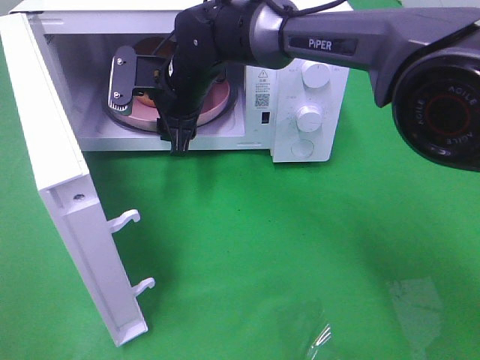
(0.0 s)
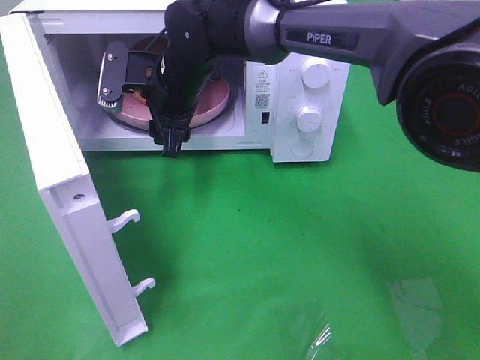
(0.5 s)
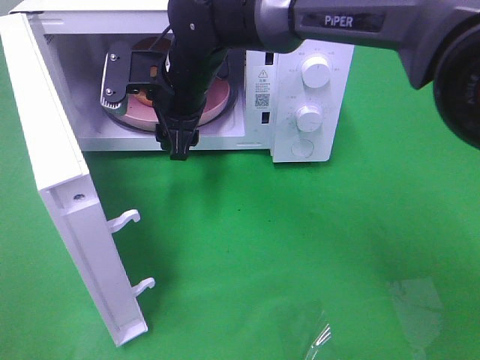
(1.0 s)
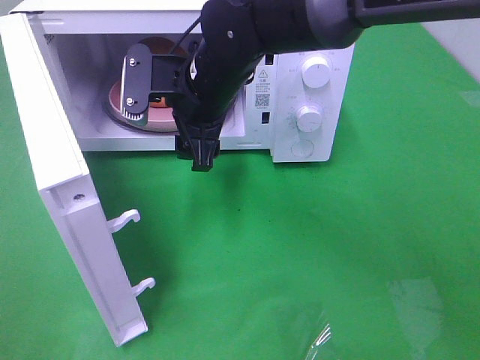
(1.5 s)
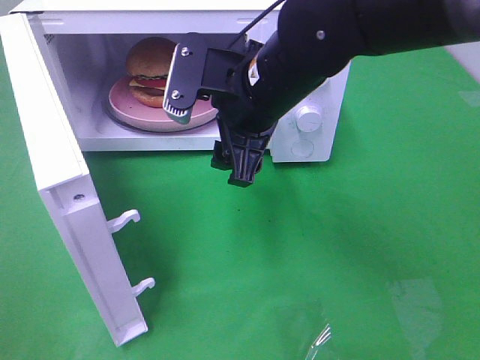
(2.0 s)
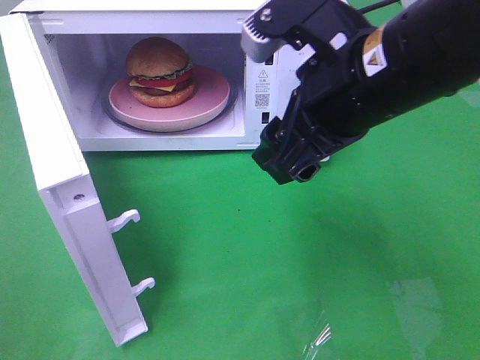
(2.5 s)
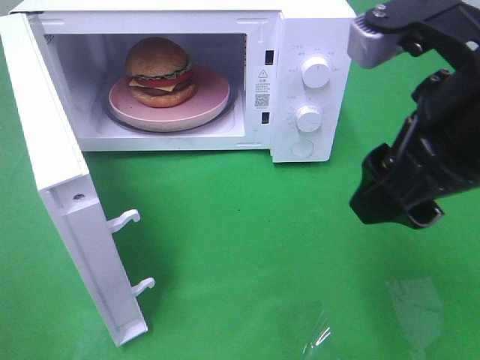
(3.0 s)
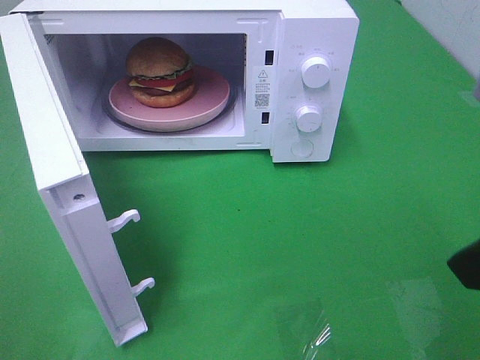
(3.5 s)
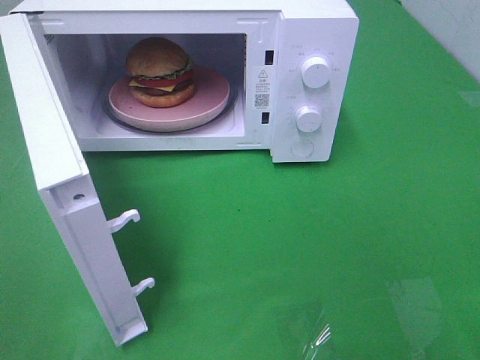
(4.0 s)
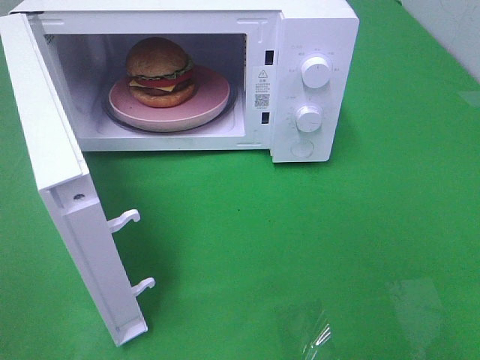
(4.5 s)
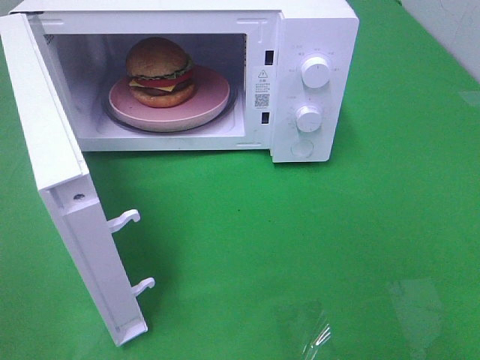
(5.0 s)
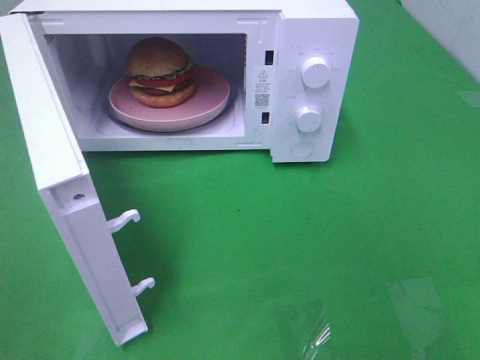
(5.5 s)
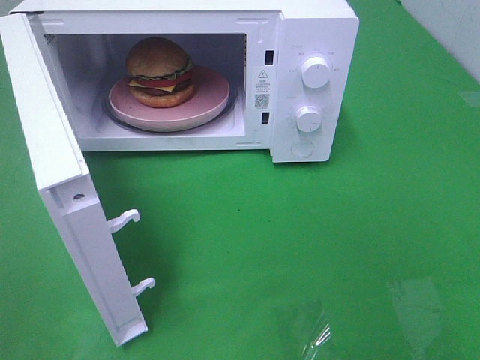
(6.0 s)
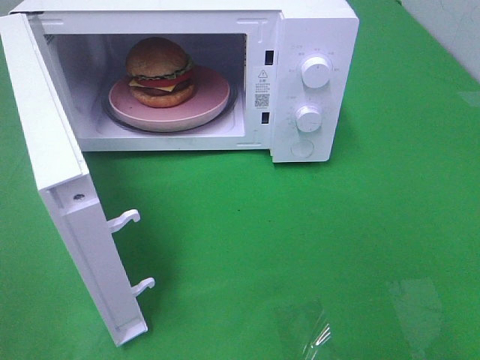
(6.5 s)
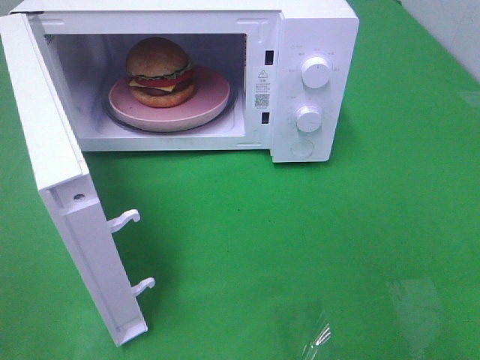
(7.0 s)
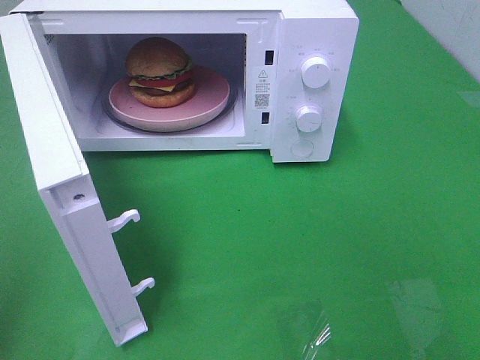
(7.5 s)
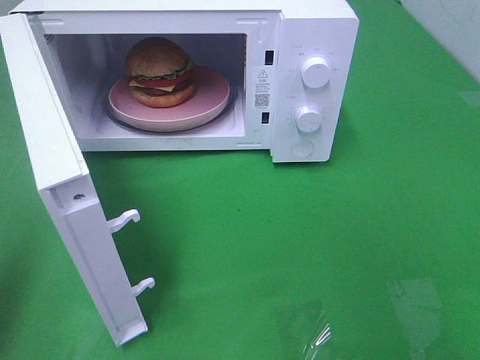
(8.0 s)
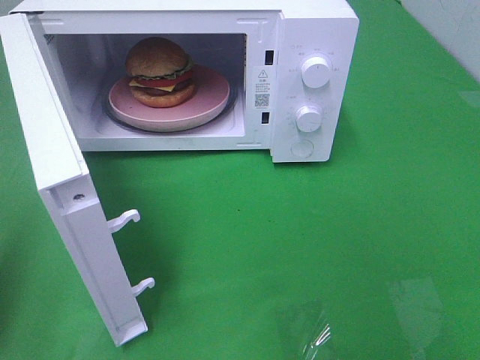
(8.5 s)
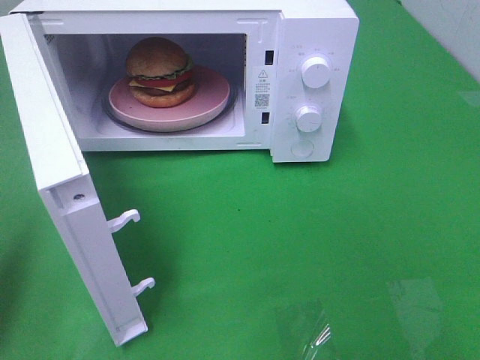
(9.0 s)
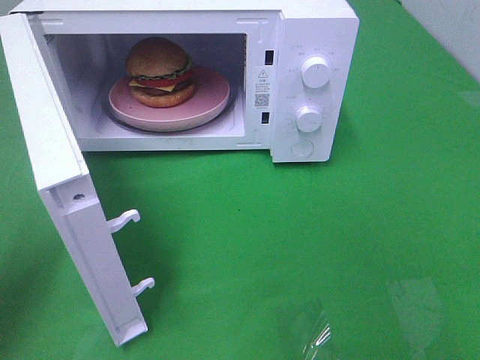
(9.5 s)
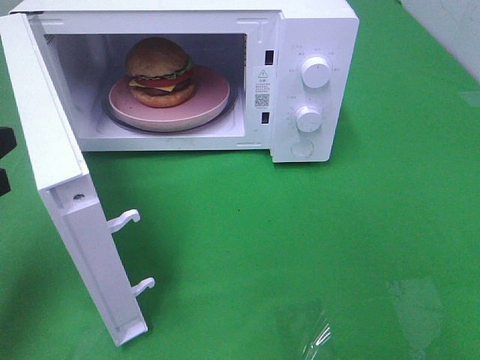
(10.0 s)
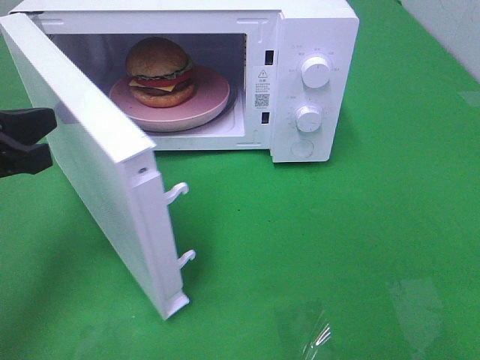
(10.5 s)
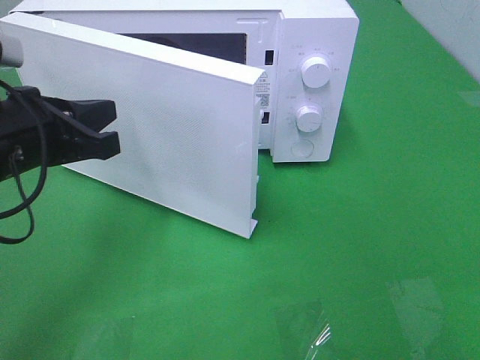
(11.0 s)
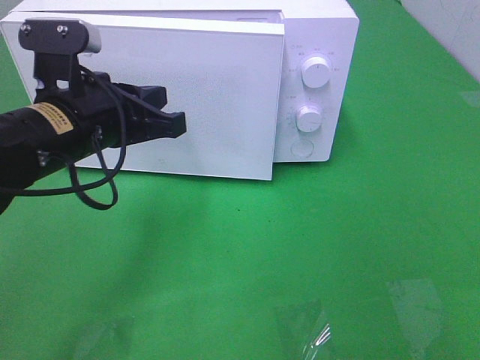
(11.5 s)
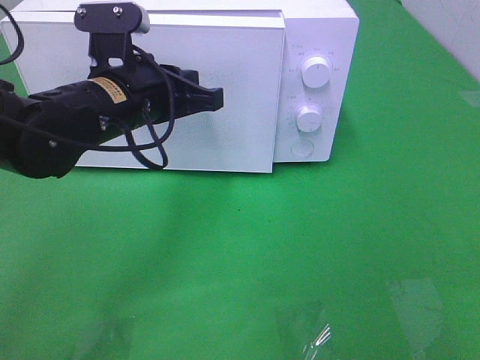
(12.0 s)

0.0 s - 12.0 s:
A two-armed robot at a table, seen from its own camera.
Task of the whole recording: Heat the burger.
0.0 s - 2.0 s: The right gripper goes some 15 cm backward, to the right and upward.
2.0 s - 4.0 s: The right gripper goes approximately 35 cm to the right and backward.
6.0 s - 8.0 s: The left gripper travels forward by roughly 10 cm, and closes.
8.0 s - 10.0 s: The left gripper travels downward and forward by some 10 cm.
10.0 s - 12.0 s: The left gripper travels to the right and forward by approximately 20 cm.

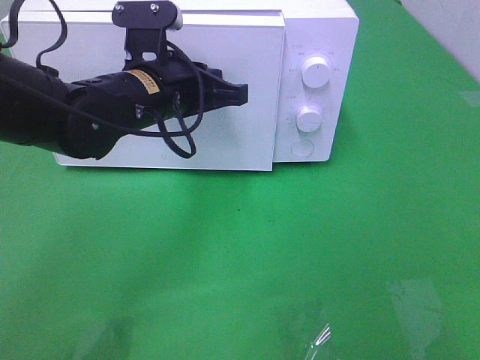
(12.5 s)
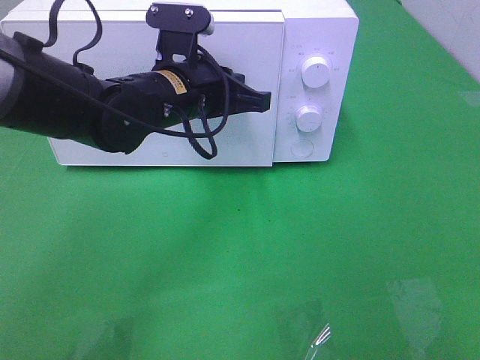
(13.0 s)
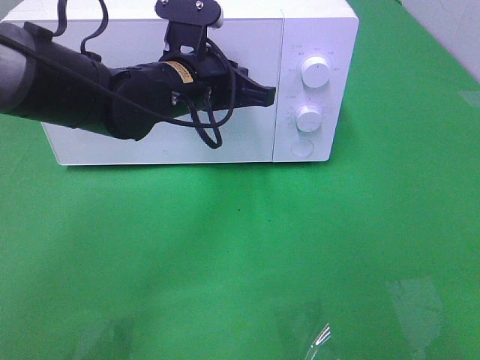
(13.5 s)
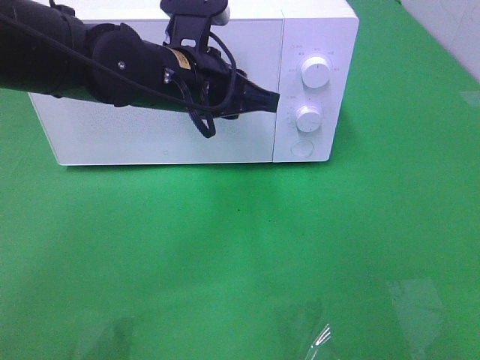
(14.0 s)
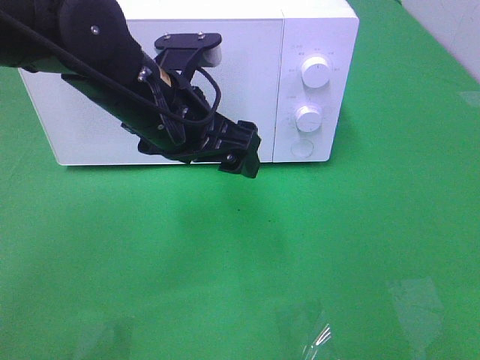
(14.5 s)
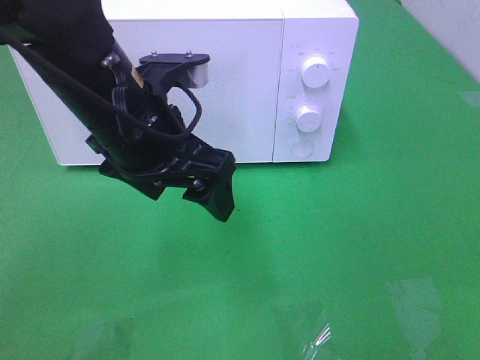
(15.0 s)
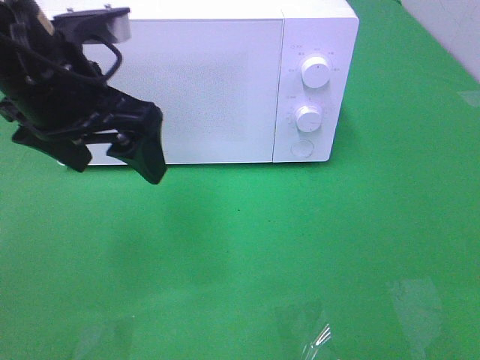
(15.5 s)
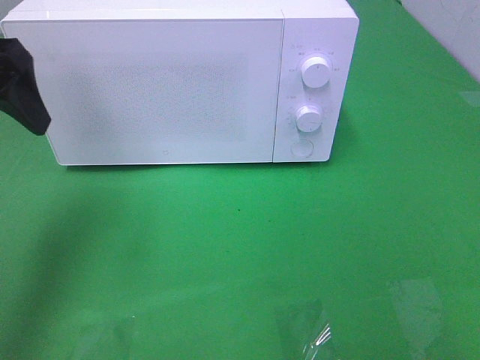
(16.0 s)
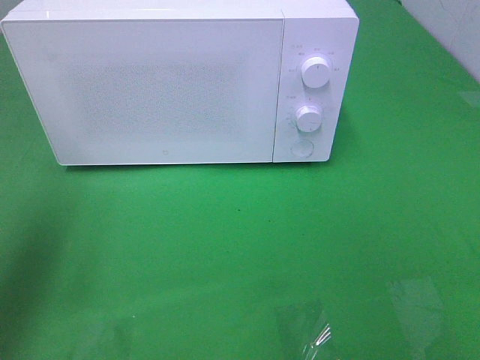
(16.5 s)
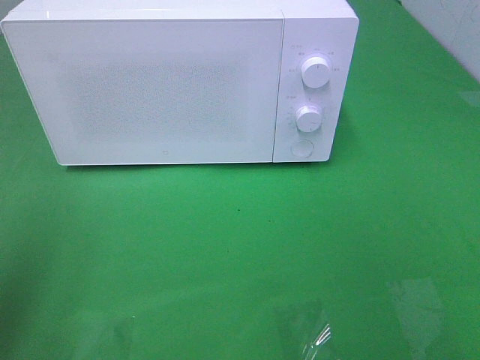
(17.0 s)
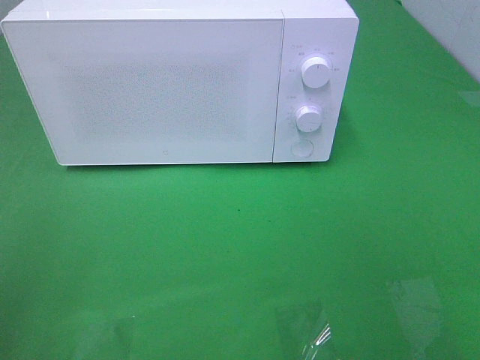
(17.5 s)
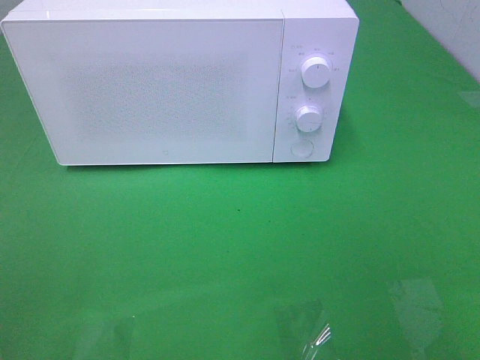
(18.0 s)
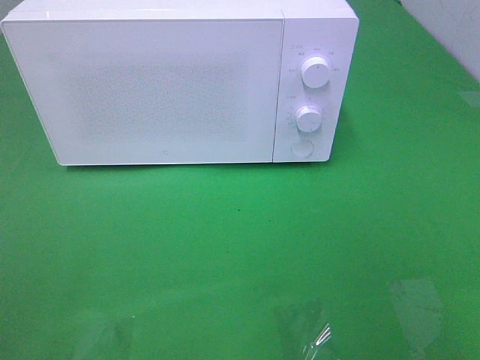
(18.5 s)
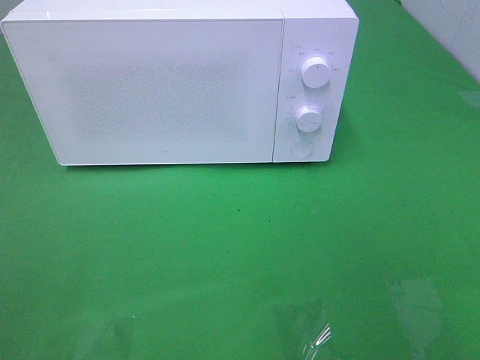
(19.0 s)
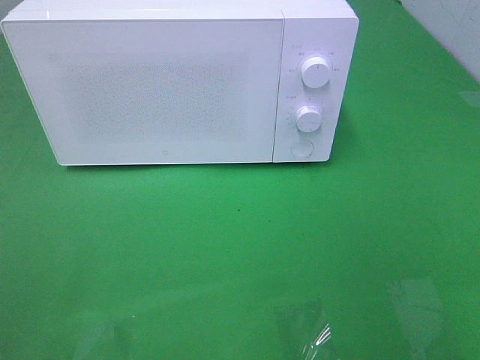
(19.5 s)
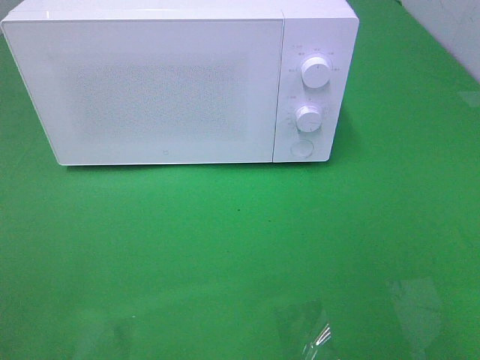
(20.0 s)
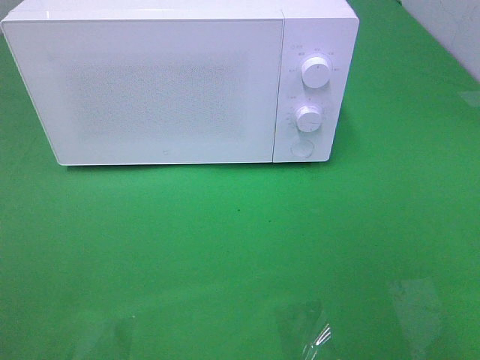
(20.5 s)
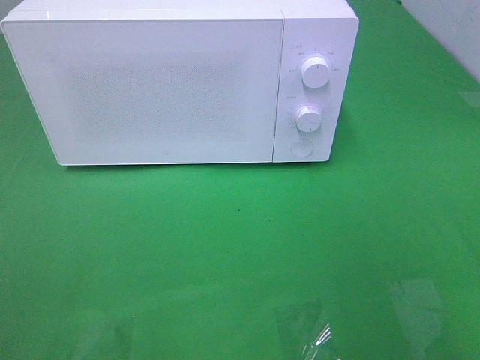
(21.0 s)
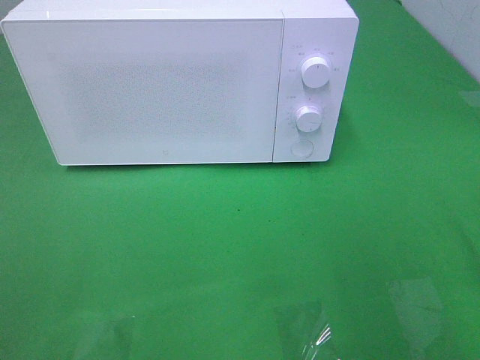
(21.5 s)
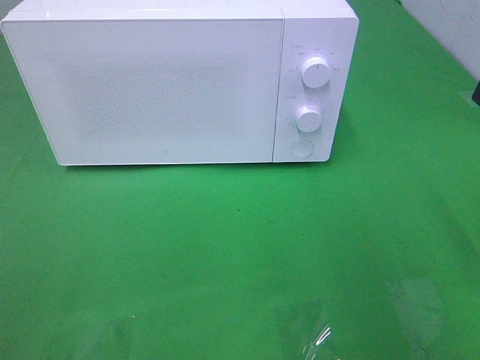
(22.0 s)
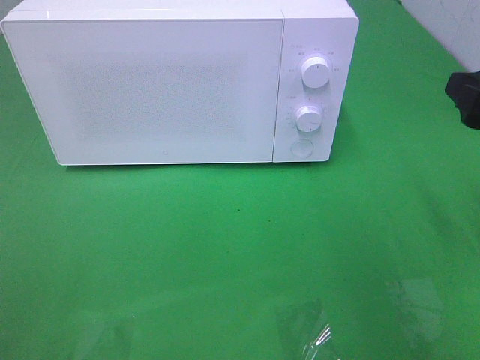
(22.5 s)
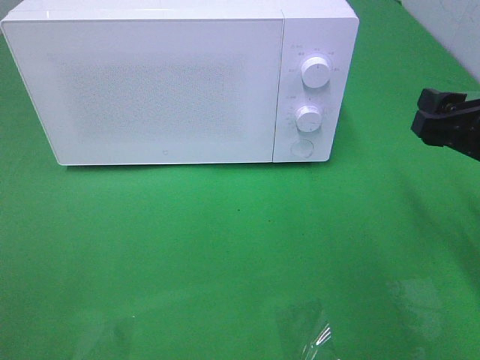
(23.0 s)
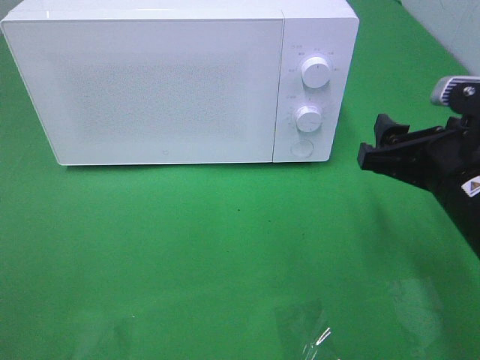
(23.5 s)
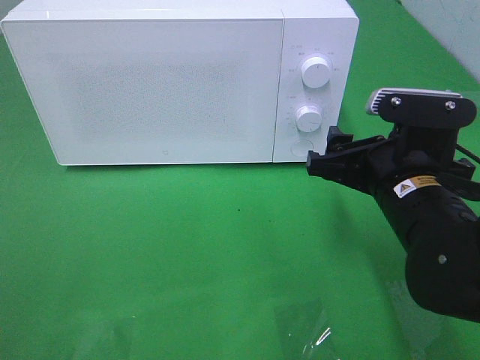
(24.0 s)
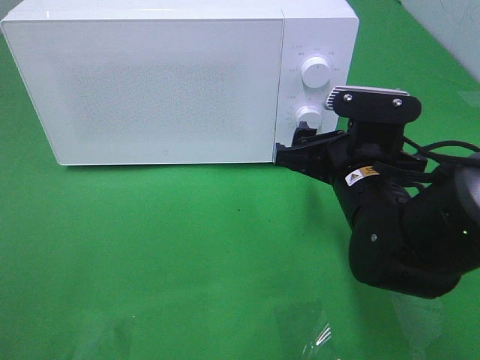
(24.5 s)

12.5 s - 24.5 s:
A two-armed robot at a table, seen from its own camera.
Task of the whole recording: Heat the burger.
12.5 s - 14.5 s: The left gripper changes place by roughly 5 cm, and opens its fingers.
14.5 s - 16.5 s: The left gripper shifts roughly 25 cm to the left.
16.5 s - 18.5 s: The left gripper travels backward by roughly 20 cm.
20.5 s - 22.5 s: The right gripper moves forward and downward, approximately 20 cm.
22.5 s - 24.5 s: The right gripper moves to the left and downward, about 20 cm.

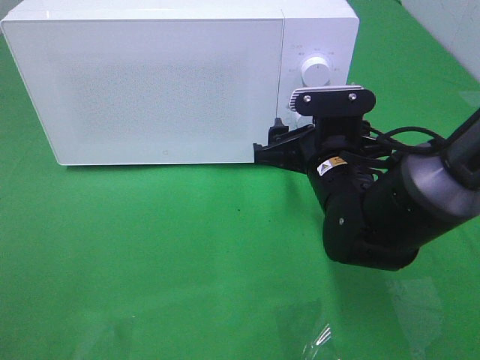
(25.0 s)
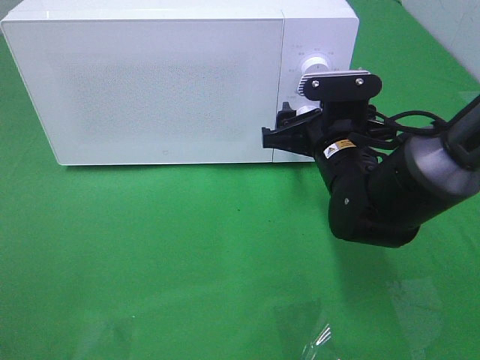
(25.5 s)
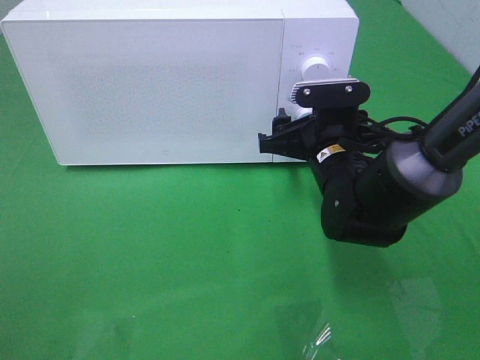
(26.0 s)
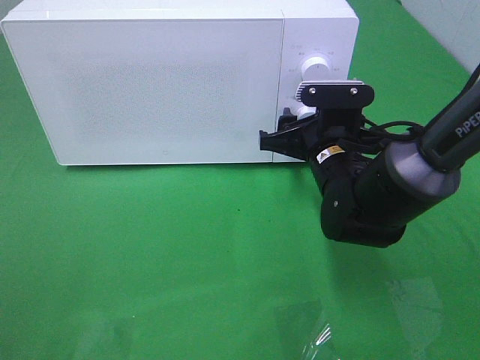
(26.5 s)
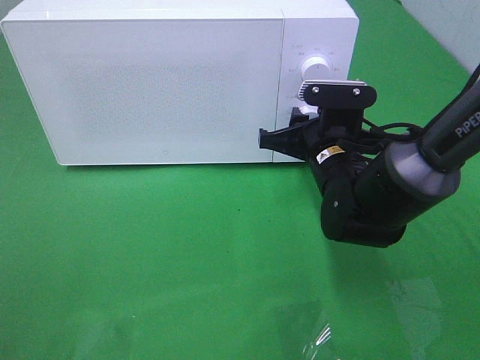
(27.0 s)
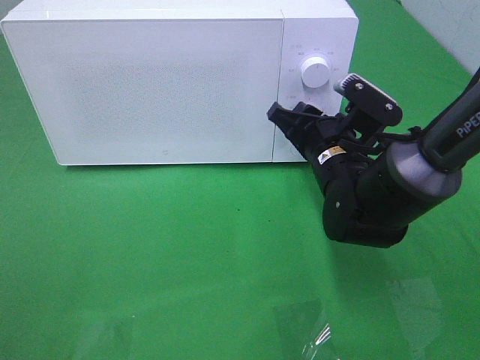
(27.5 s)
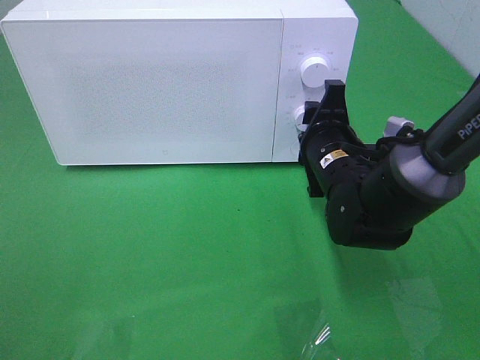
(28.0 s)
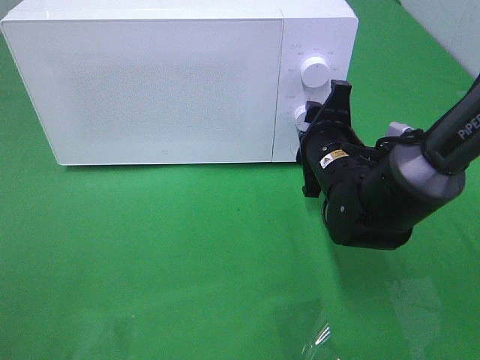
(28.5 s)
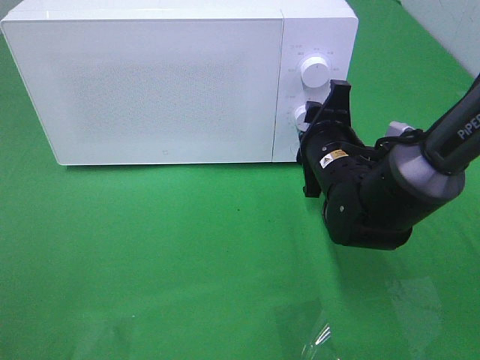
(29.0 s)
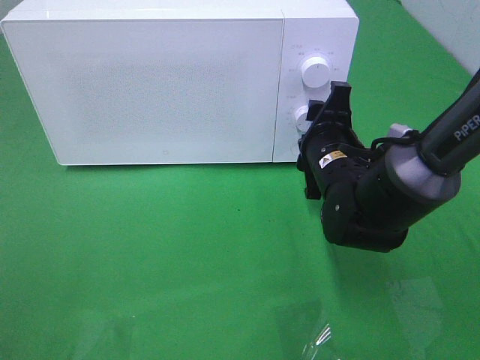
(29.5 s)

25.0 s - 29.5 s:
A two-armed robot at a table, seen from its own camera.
Task of the whole recording: Heat the burger.
25.0 s - 27.0 s: The right gripper closes up.
